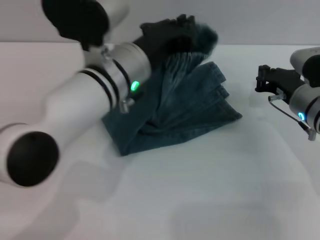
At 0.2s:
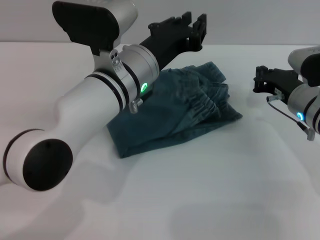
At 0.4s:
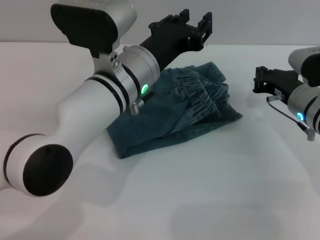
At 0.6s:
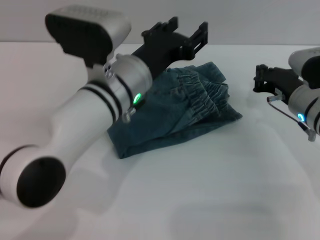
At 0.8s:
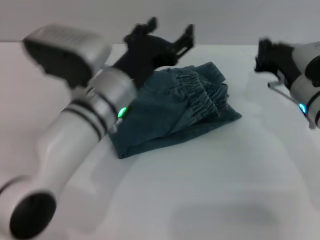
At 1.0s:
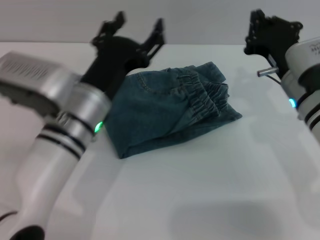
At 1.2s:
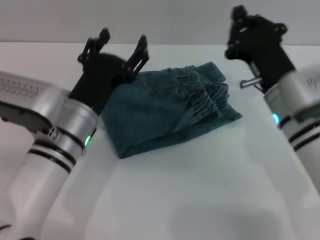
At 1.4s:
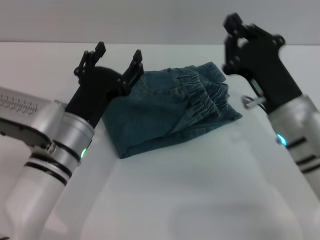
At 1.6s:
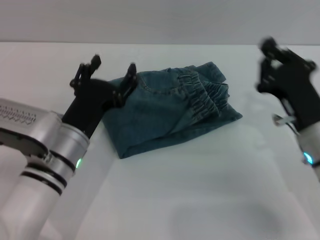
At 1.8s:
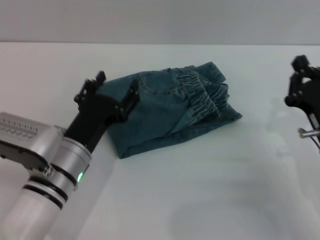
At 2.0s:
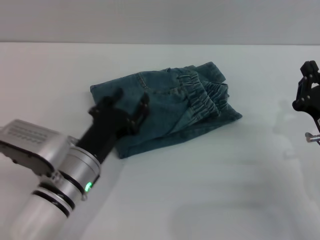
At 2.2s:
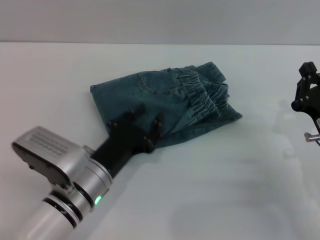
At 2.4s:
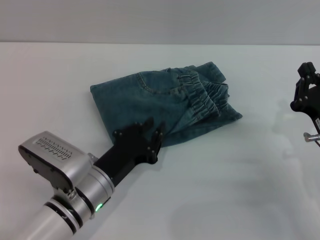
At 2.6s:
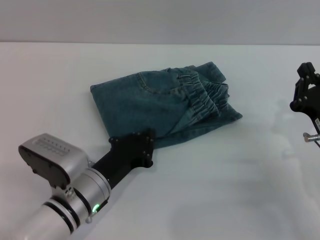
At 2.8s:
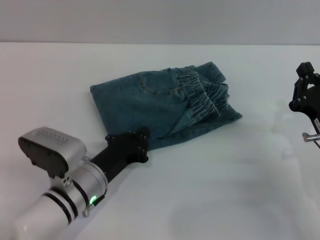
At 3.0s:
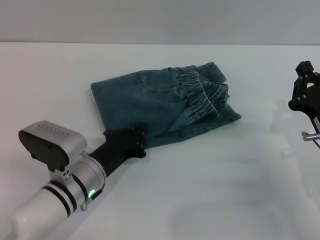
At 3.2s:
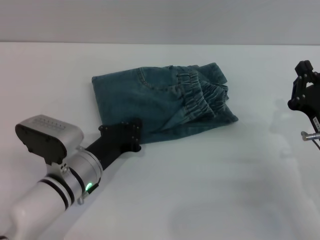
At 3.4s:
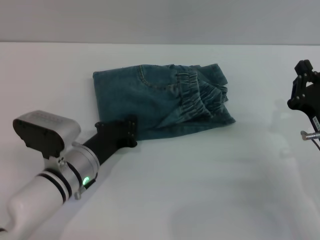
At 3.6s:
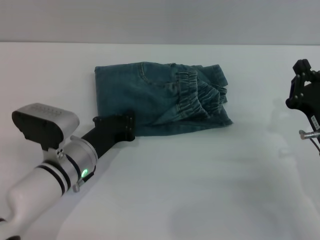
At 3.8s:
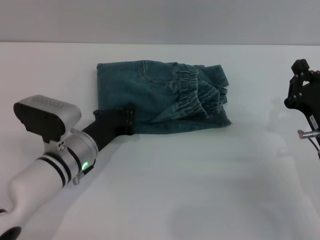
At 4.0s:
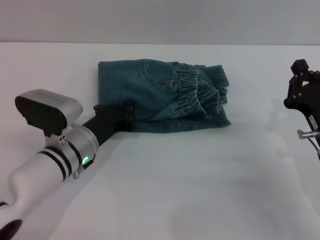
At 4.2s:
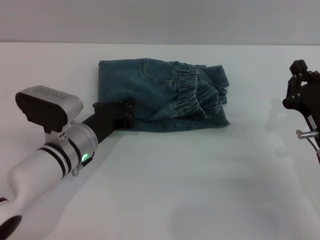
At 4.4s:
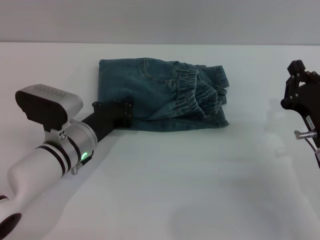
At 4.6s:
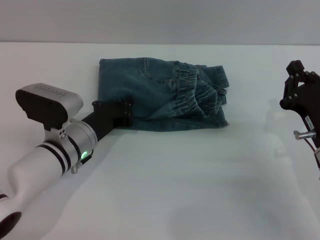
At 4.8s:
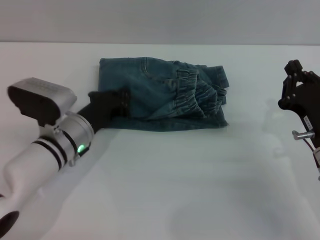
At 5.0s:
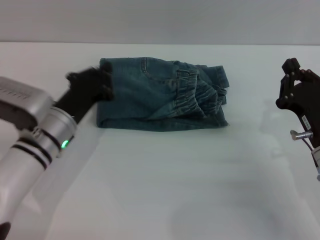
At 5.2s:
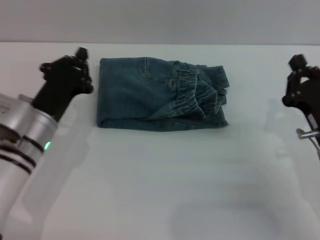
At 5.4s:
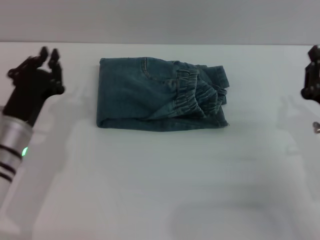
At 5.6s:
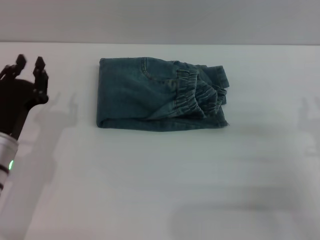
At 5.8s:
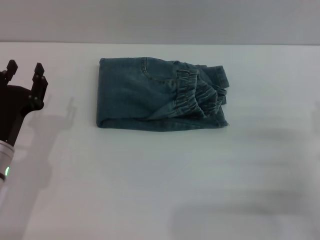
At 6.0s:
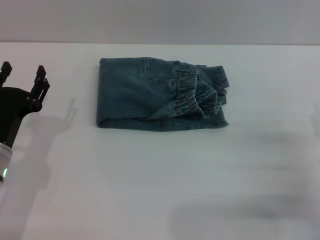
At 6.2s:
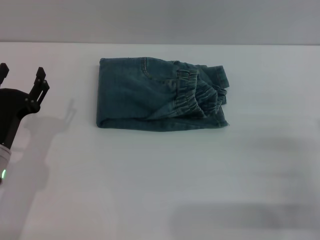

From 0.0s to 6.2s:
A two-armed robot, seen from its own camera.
Step, from 1.2s to 4.8s: Place the folded trousers onto the center area with the left grippers.
From 0.0s to 1.6s: The right gripper is displaced backward by about 10 cm, while the left gripper moves downward, to the left and backward, about 15 cm, and opens.
From 1.6s to 3.2s: The left gripper goes about 5 cm downward, and closes.
From 3.2s to 4.6s: The left gripper moves roughly 5 cm.
From 4.6s to 6.2s: The right gripper goes some 5 cm to the right, and opens its fingers. The left gripper travels to the left and backward by some 10 cm, and opens up.

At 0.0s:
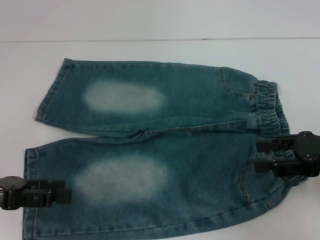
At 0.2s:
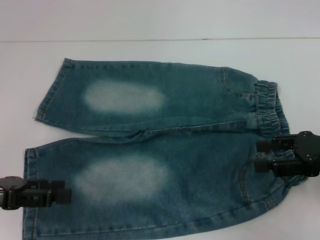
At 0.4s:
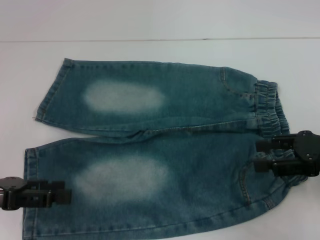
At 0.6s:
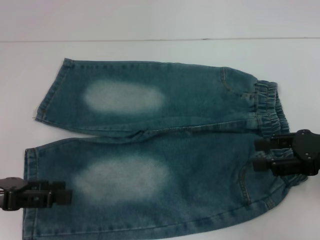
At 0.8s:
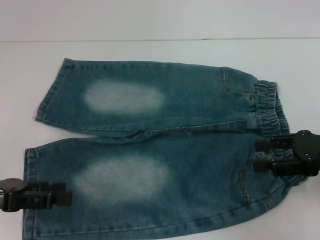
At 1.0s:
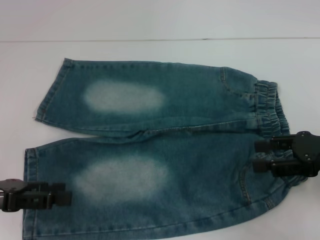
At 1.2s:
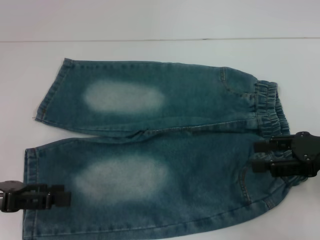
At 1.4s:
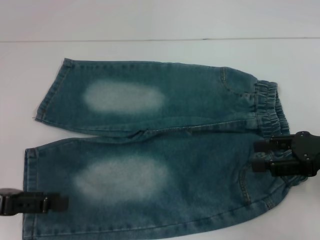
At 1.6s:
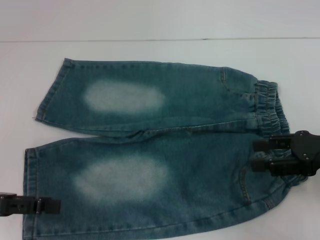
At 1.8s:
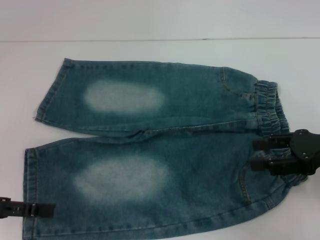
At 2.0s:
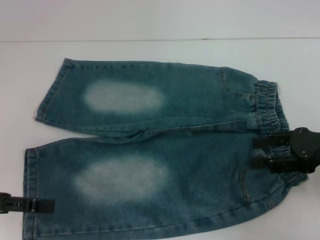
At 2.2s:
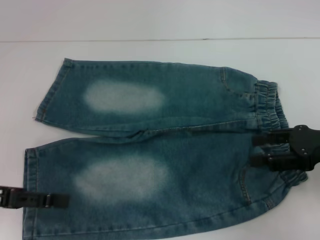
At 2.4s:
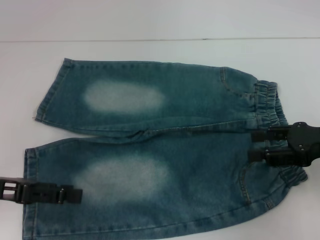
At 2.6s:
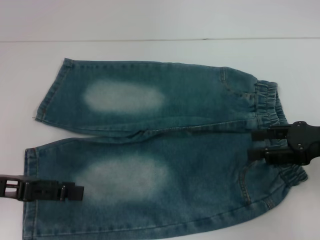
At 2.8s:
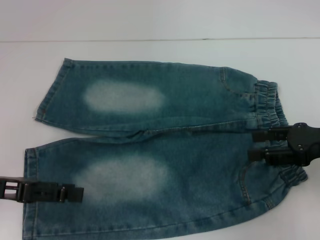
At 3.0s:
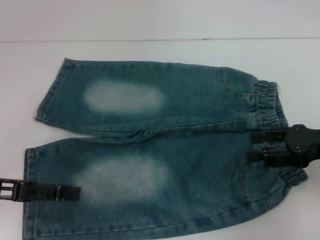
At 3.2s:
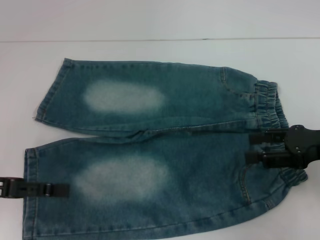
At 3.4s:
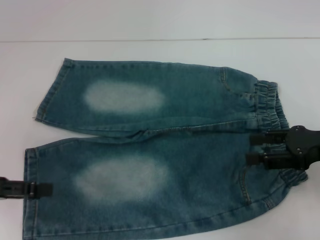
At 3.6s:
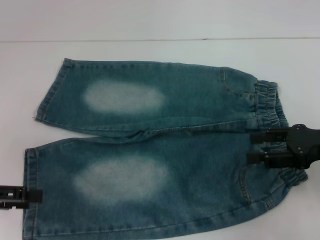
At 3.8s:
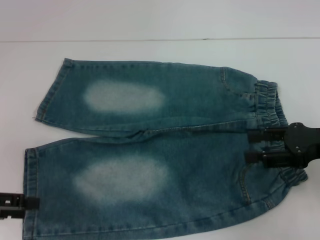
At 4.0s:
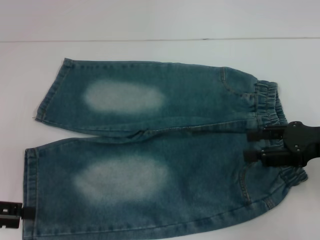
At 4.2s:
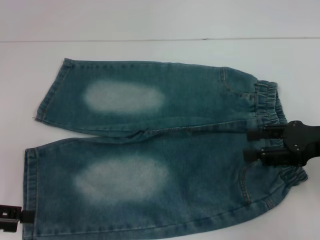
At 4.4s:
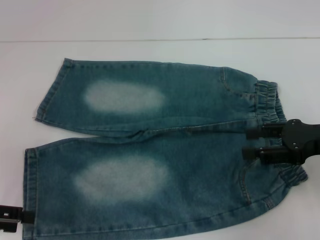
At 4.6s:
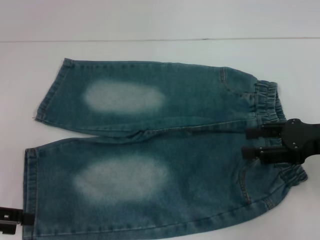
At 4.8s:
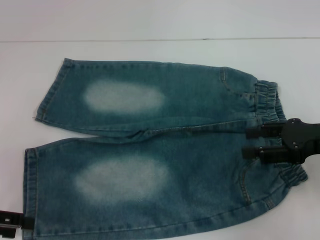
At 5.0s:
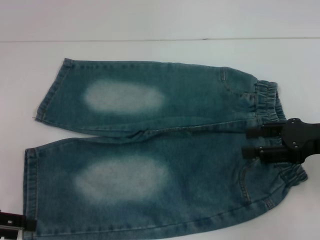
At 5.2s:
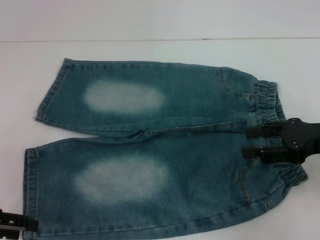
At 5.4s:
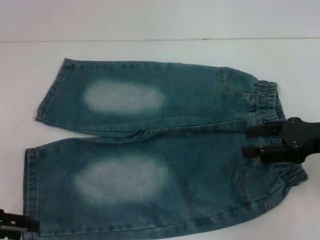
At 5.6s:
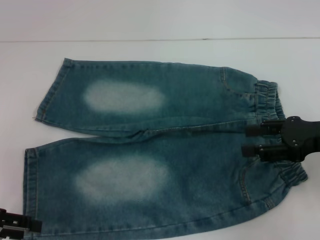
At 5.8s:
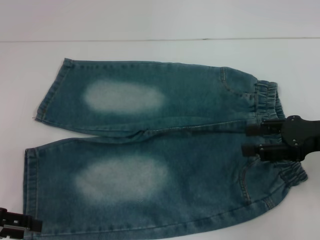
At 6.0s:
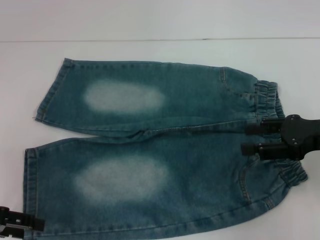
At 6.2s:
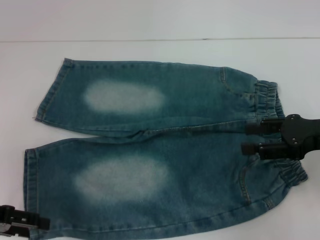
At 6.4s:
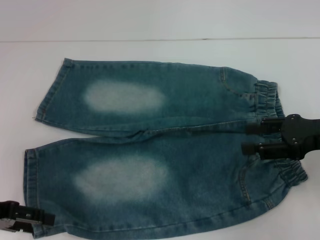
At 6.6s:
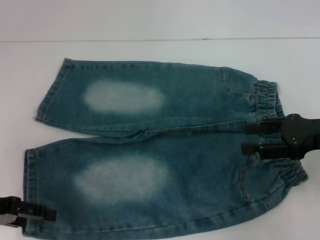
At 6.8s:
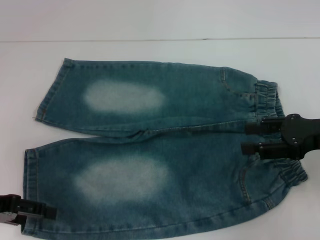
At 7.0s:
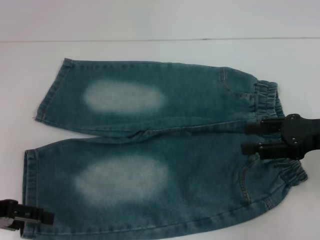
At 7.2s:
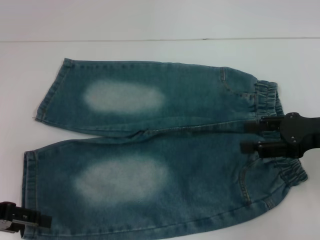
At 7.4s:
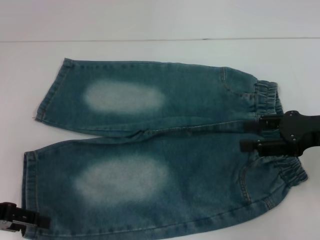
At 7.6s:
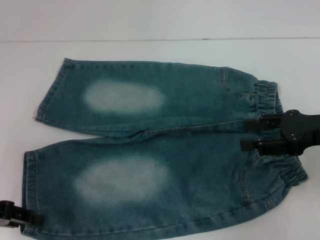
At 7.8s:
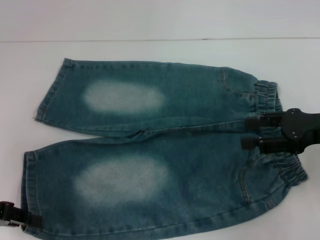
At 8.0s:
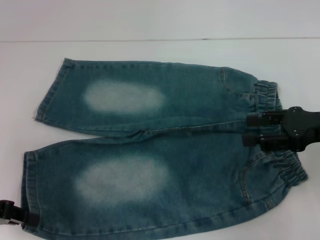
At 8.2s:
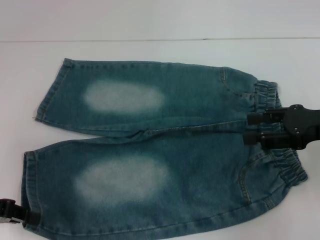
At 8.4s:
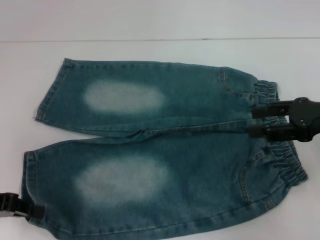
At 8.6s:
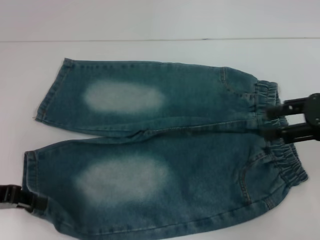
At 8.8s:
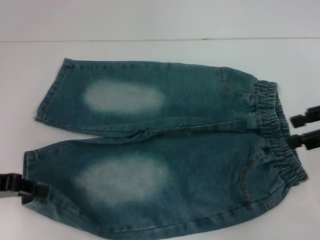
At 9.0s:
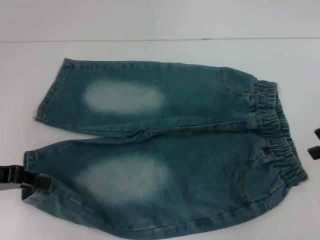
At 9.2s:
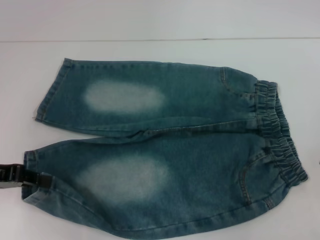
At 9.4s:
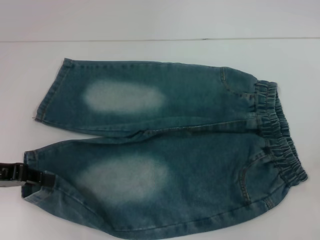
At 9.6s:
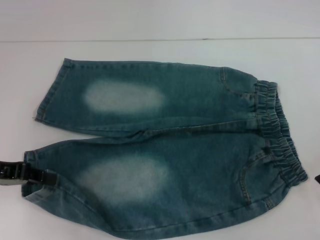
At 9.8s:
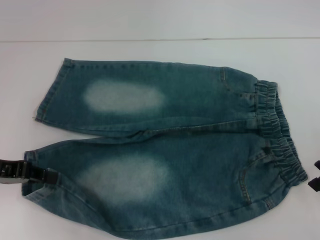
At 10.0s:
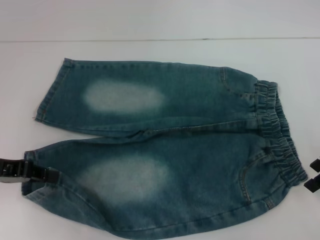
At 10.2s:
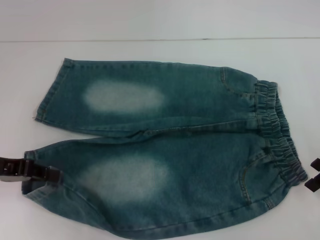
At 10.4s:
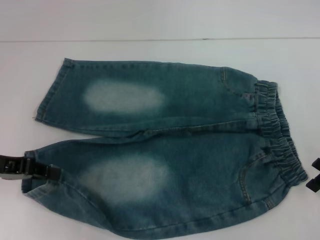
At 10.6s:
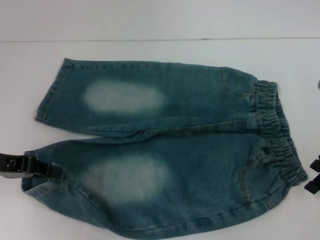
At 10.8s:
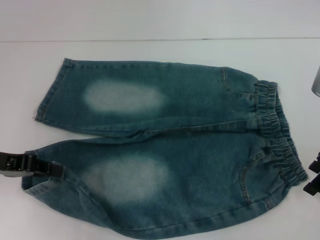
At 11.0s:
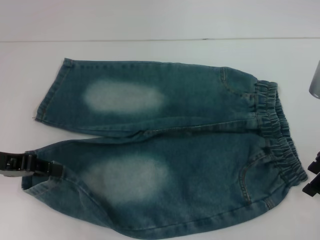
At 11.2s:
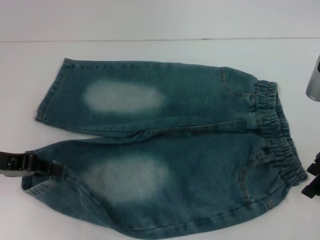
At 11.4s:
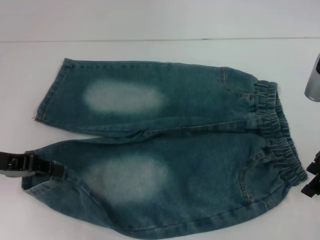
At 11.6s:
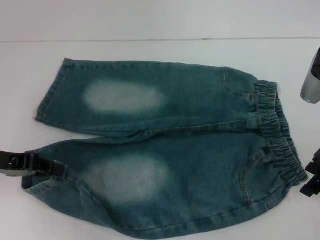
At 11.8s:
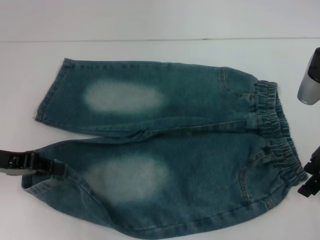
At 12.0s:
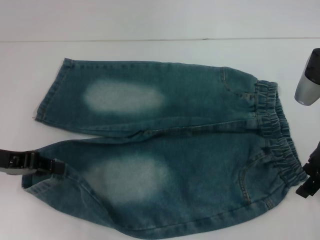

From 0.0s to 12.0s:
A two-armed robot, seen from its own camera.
Step, from 0.0s to 7.8s: Grab the lower left pant leg with your left hand.
From 0.0s to 3.0s: The grippers stay close to where they were, moving slightly.
From 3.0s to 4.4s: The left gripper ends up some 5 cm from where it was.
From 4.4s to 7.6s: The grippers stay close to where they were, moving slightly.
From 7.6s to 9.0s: The right gripper shifts about 5 cm upward, while the left gripper closes.
From 9.0s to 10.4s: The right gripper travels to the left by some 5 cm.
From 10.4s to 12.0s: The grippers make only small movements.

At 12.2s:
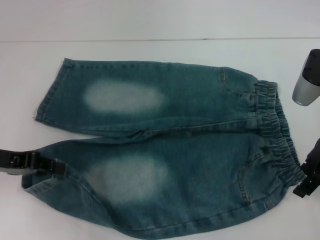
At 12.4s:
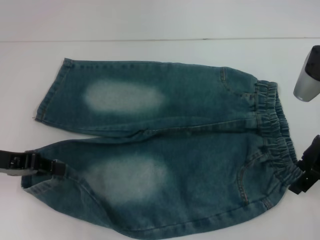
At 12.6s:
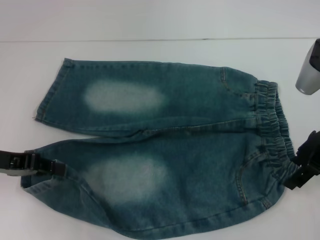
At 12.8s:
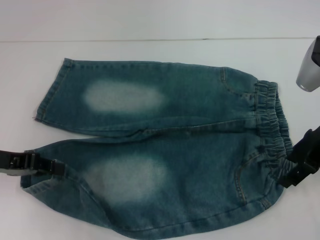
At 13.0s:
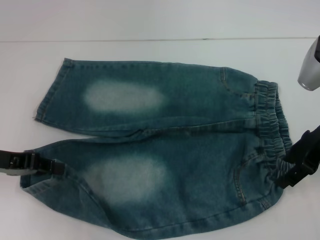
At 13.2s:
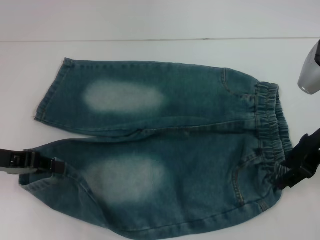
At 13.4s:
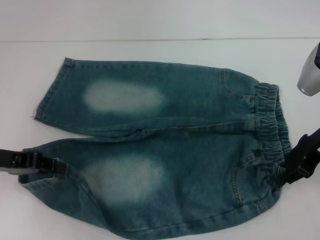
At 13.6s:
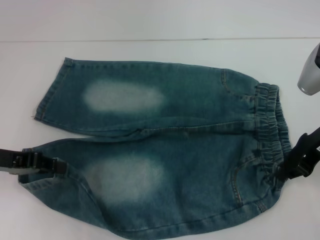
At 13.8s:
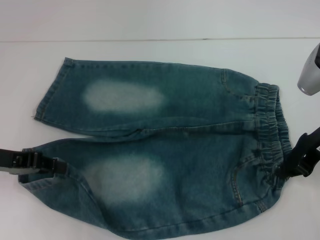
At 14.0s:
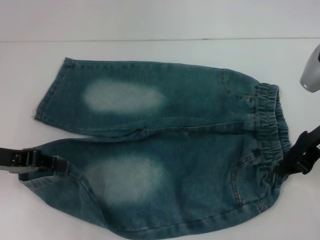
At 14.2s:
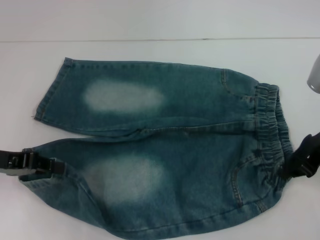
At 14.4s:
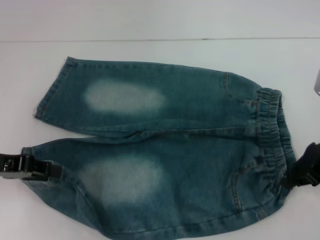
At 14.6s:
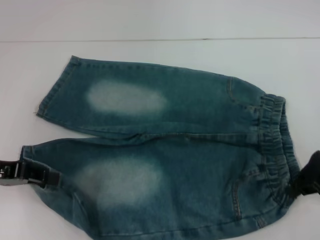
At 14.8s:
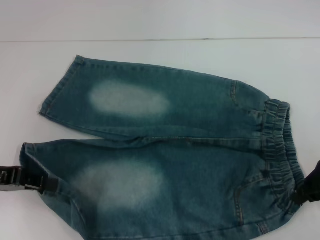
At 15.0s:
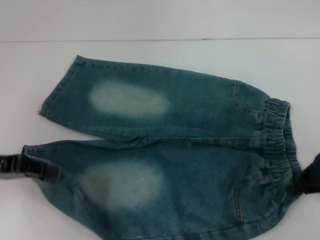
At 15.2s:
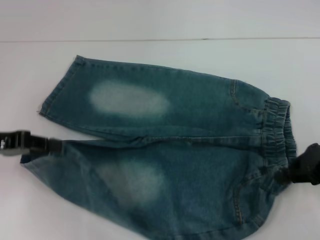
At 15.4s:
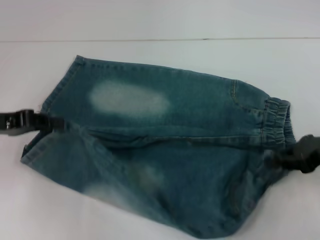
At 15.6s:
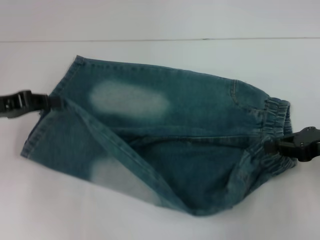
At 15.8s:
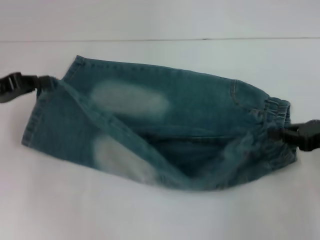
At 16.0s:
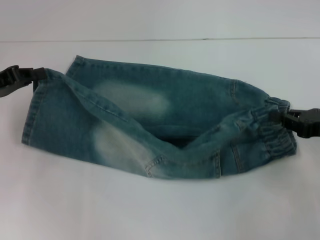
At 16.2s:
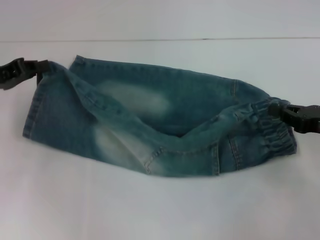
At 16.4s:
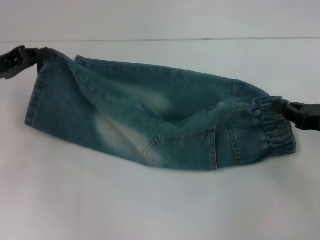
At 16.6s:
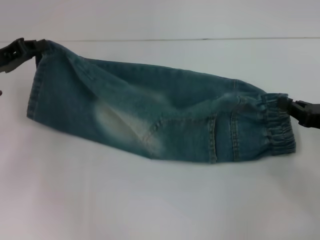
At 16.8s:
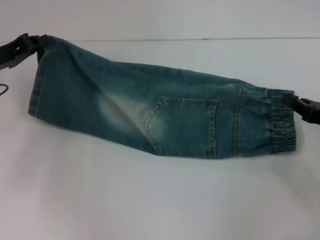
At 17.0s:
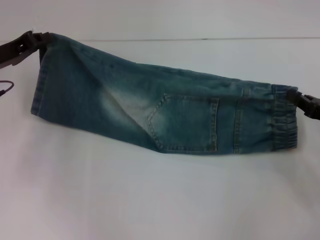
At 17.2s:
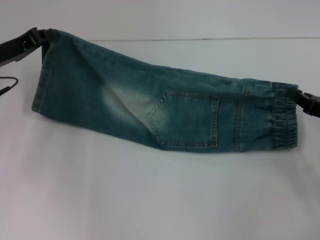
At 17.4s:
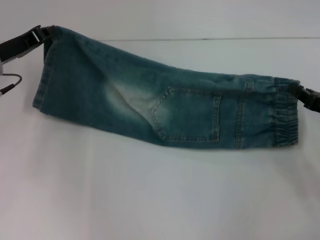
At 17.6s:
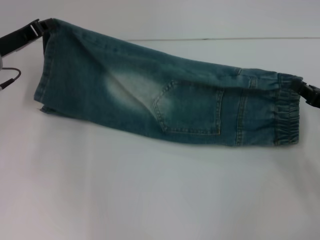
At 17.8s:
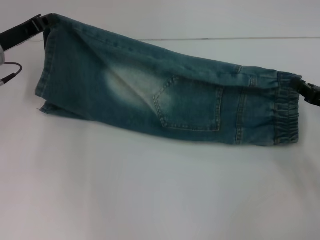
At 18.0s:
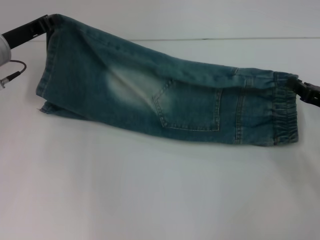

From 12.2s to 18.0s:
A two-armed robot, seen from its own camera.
From 12.2s to 13.6s: The right gripper closes up.
From 13.6s to 15.0s: The right gripper changes place by approximately 5 cm, and closes up.
From 15.0s to 16.6s: The left gripper goes about 10 cm forward, while the right gripper shifts approximately 5 cm downward.
From 16.6s to 18.0s: The left gripper shifts by approximately 5 cm.
